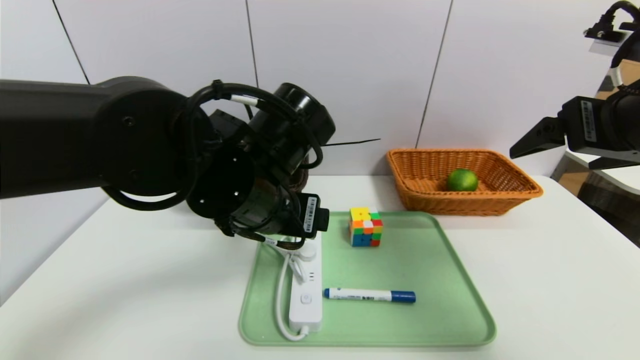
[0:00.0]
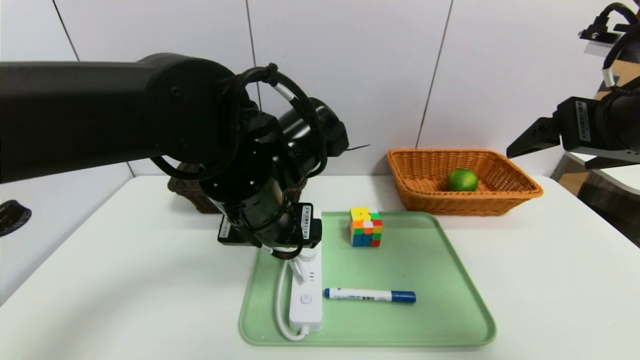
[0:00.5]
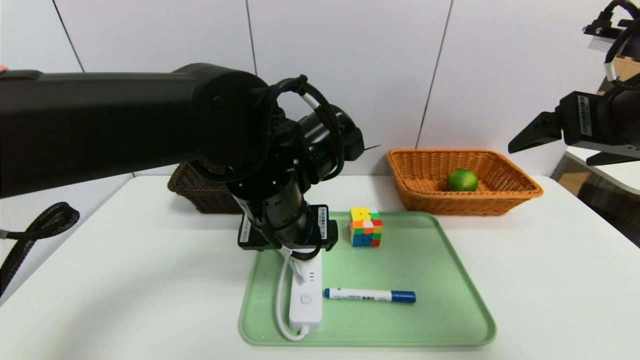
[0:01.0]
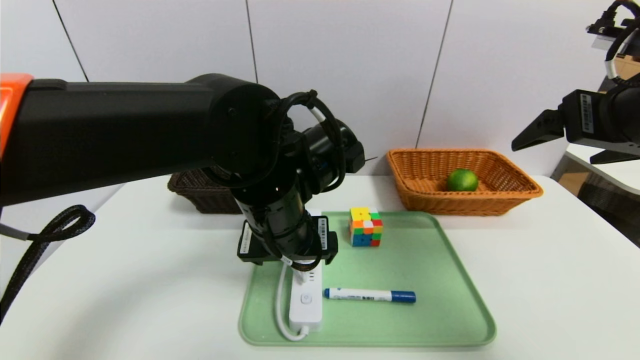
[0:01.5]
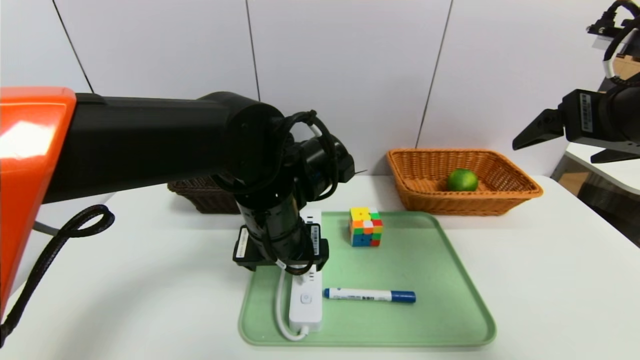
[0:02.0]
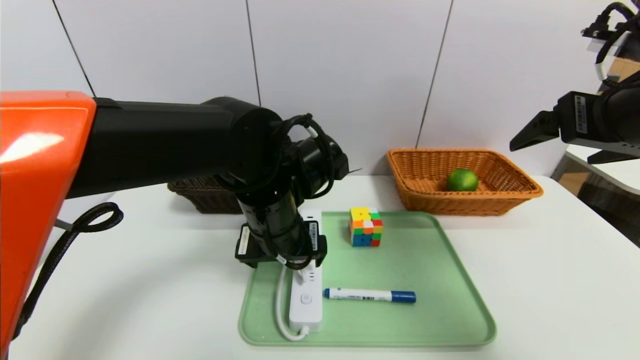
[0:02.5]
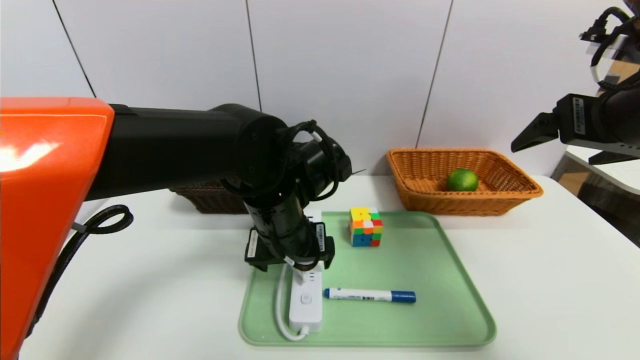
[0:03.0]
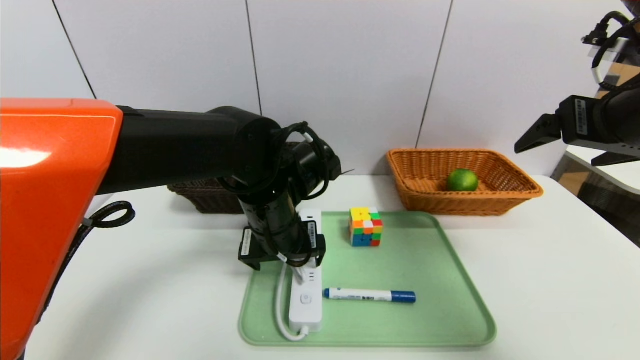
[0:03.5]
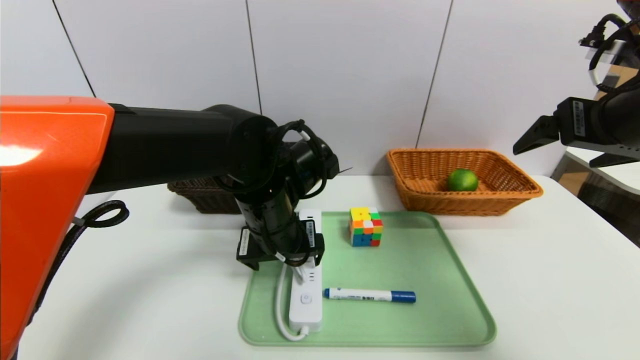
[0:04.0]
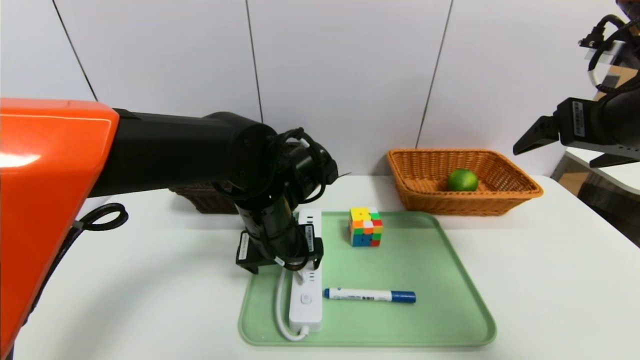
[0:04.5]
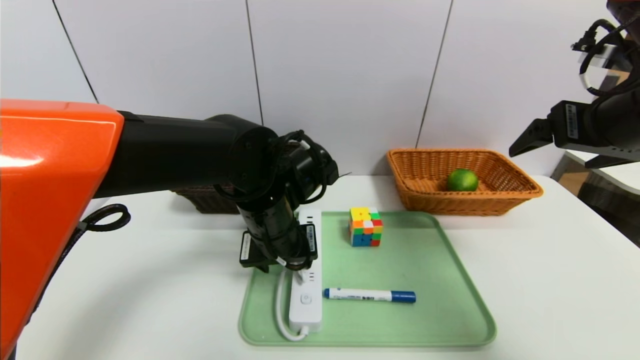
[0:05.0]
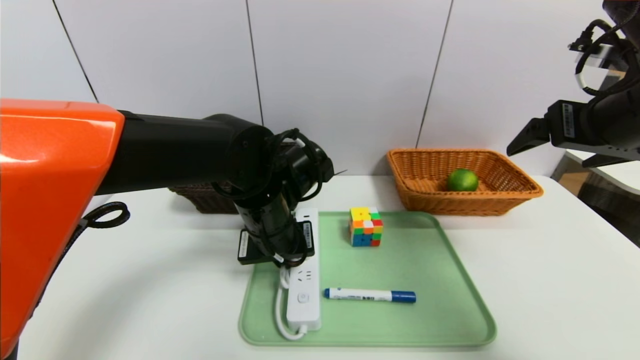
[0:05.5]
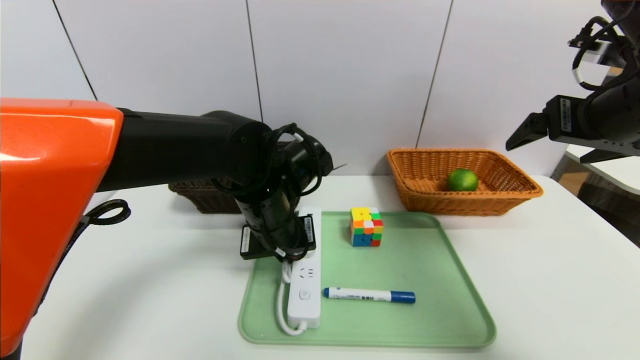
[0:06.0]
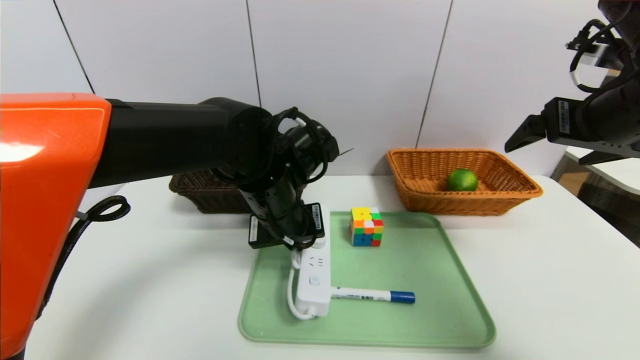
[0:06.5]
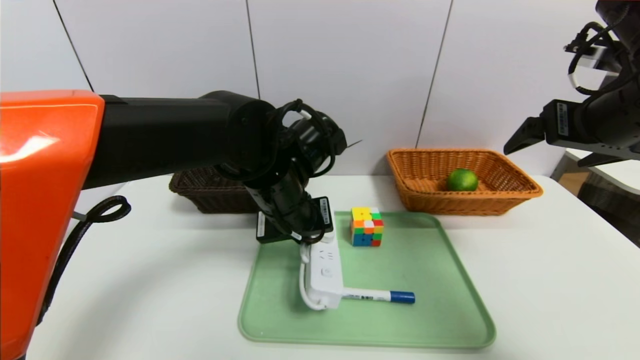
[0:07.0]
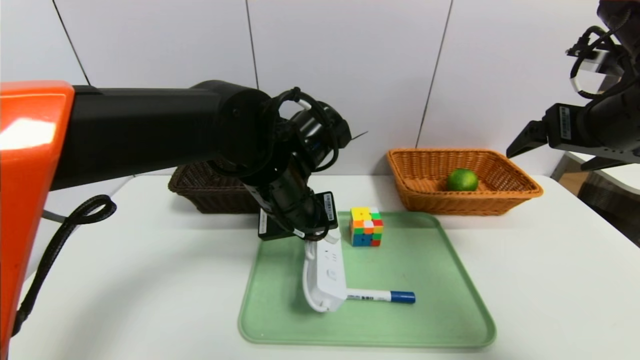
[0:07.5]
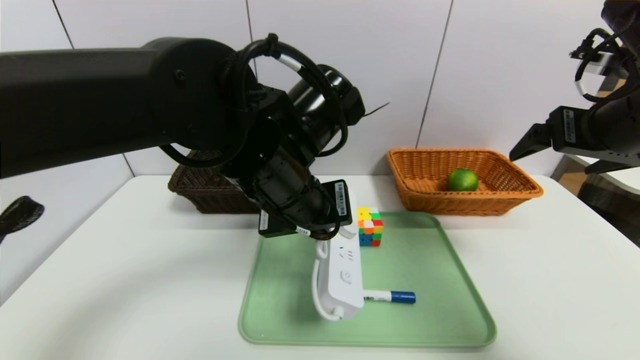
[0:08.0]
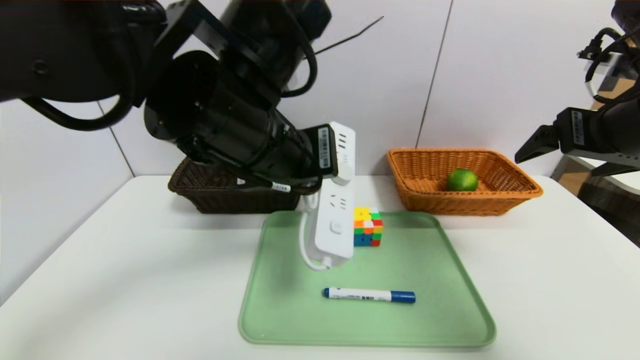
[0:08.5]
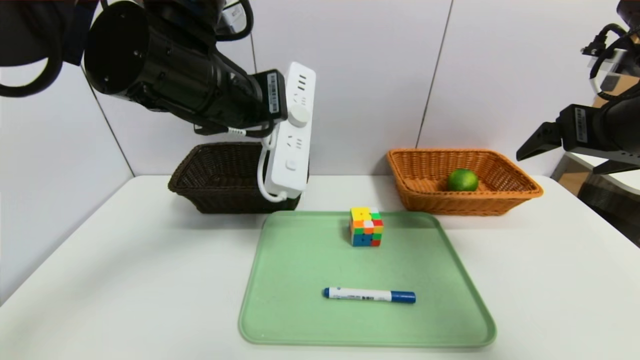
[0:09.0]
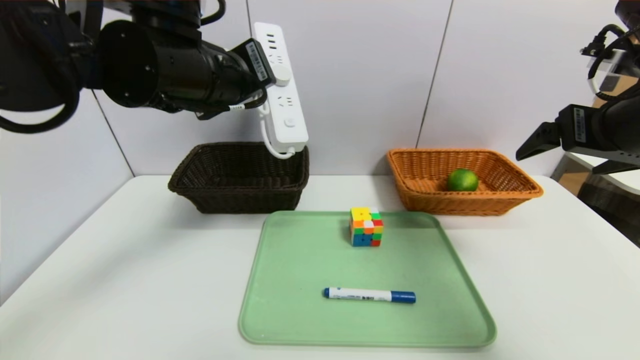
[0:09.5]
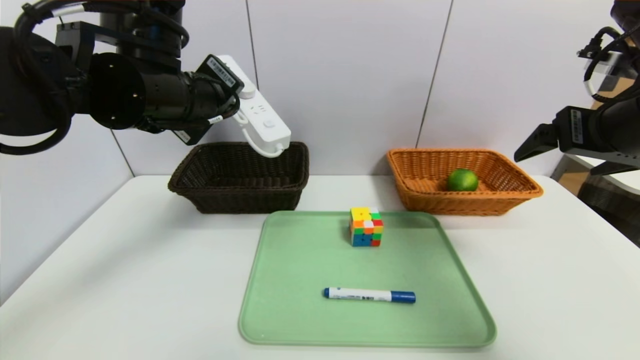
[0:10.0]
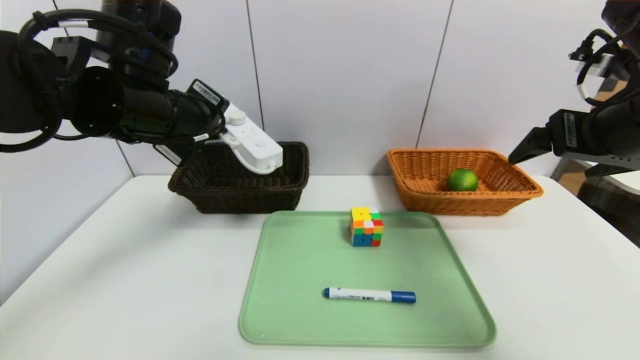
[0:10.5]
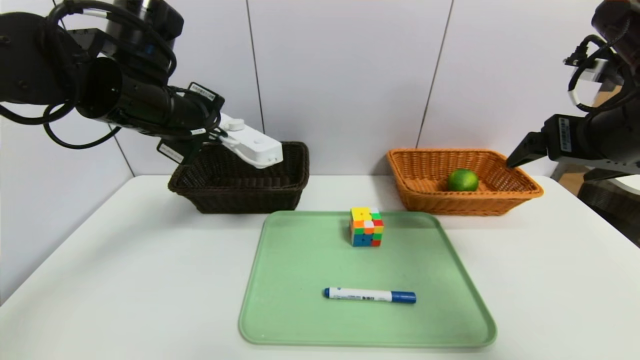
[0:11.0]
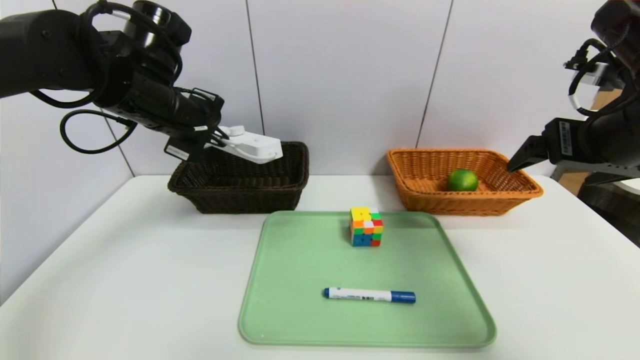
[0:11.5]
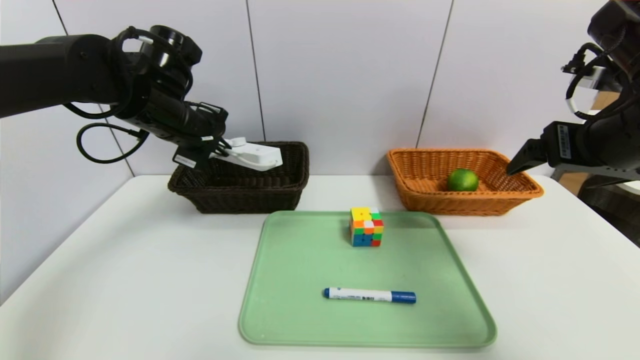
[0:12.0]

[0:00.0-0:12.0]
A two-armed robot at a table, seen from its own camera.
Task of the whole recording: place the food in the right basket with the right gripper, and place the non food items in the left basket with the left gripper.
0:02.0 to 0:04.0: The grippers make only small movements.
0:04.0 to 0:06.0: The left gripper closes up.
0:06.0 to 0:08.0: The left gripper moves upward and backward, about 10 cm.
0:08.0 to 0:10.0: The left gripper goes approximately 15 cm to the left and upward.
0:10.0 to 0:12.0: The left gripper shifts about 10 cm forward.

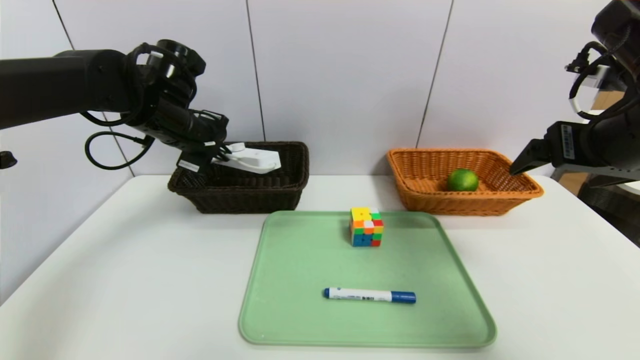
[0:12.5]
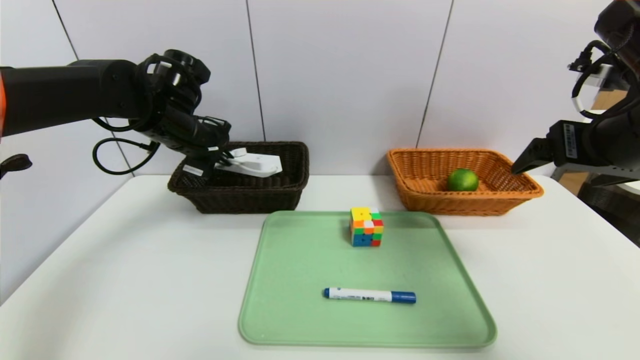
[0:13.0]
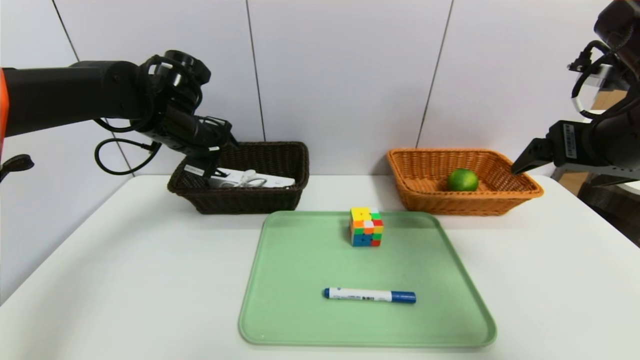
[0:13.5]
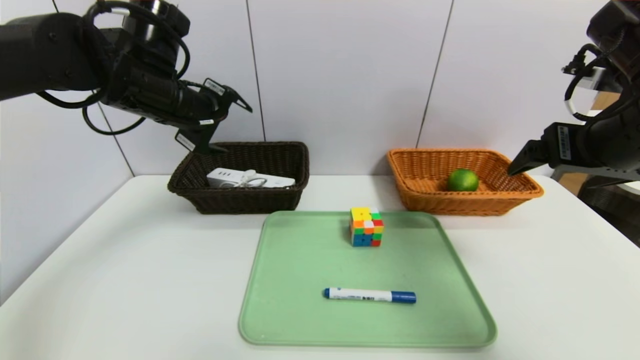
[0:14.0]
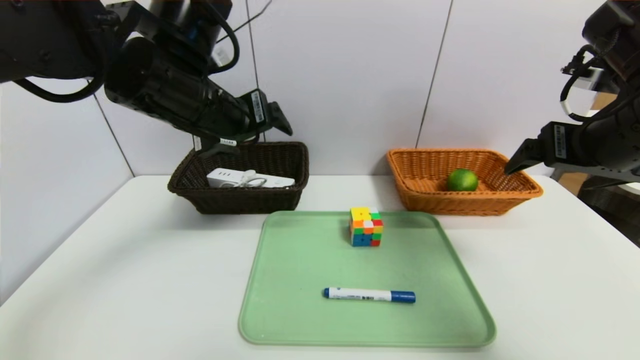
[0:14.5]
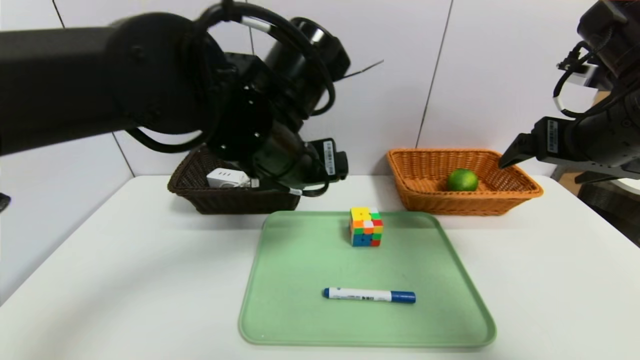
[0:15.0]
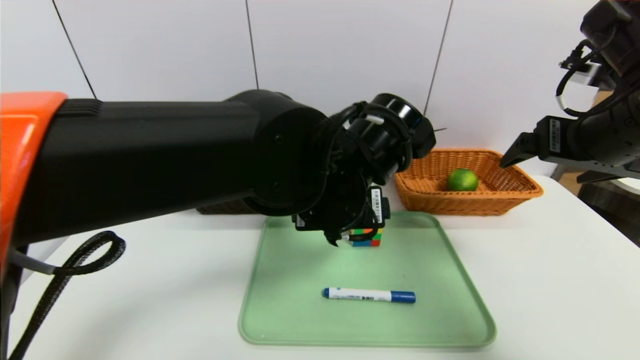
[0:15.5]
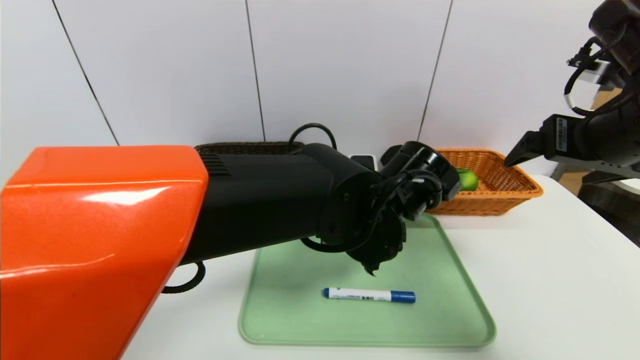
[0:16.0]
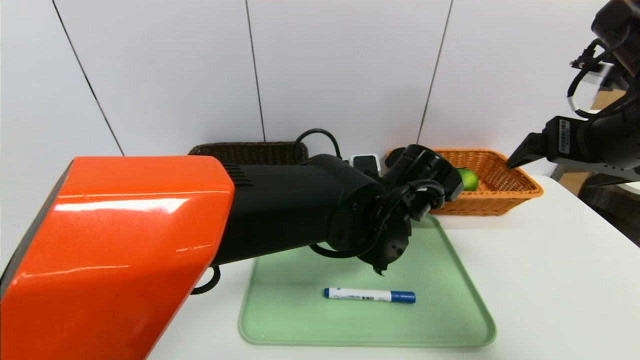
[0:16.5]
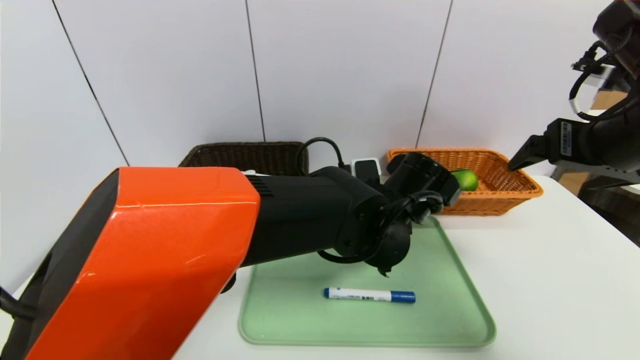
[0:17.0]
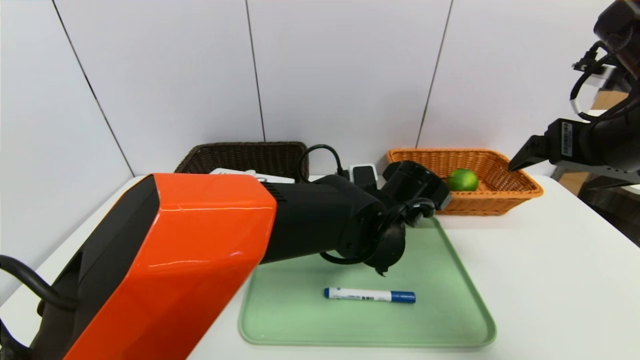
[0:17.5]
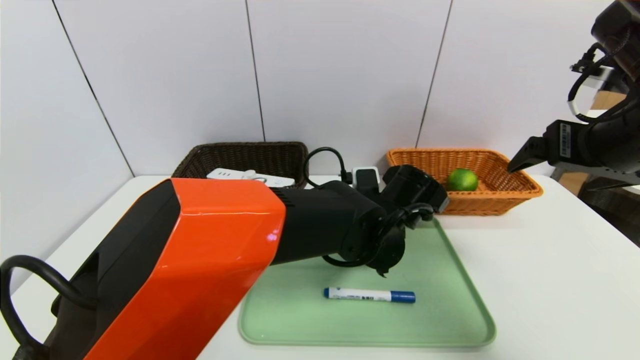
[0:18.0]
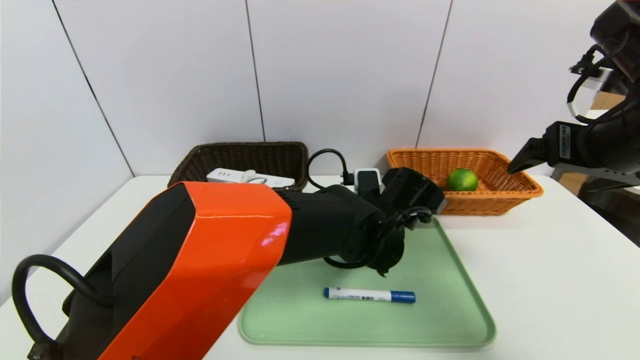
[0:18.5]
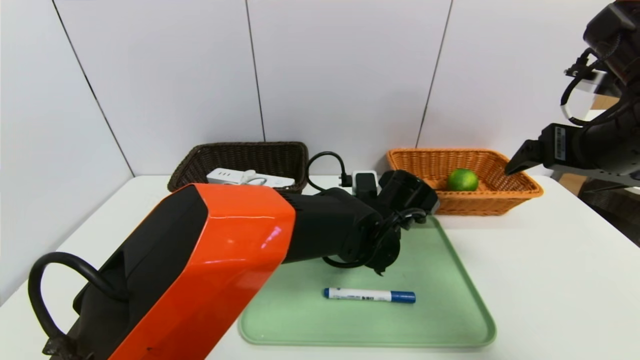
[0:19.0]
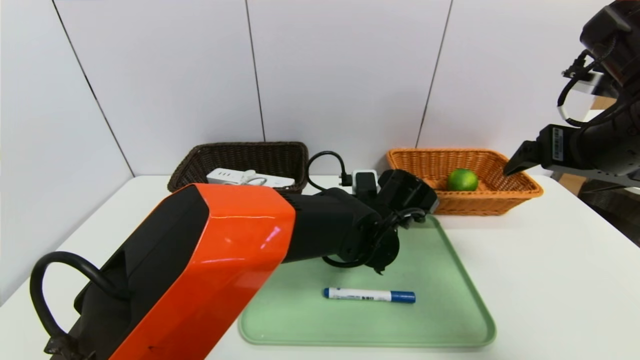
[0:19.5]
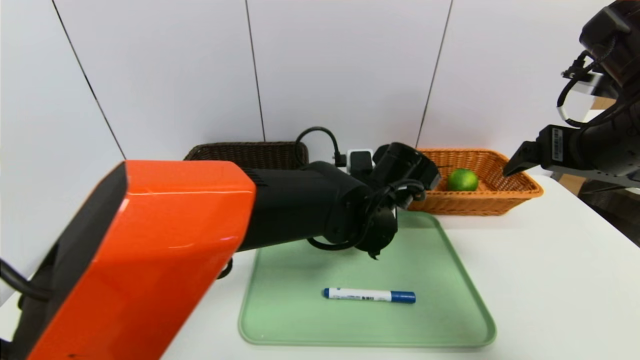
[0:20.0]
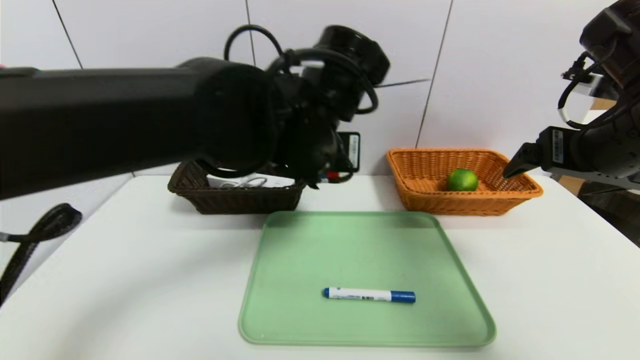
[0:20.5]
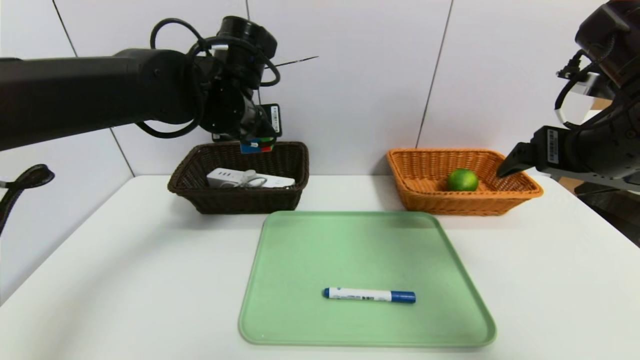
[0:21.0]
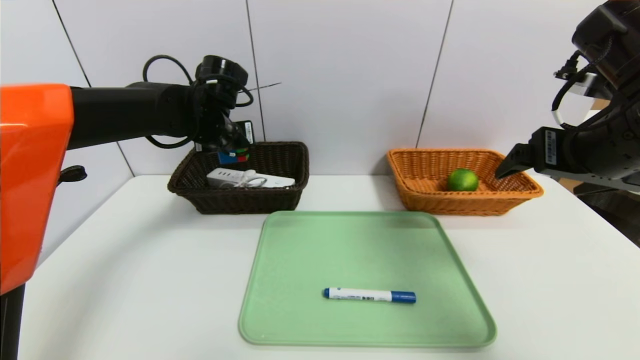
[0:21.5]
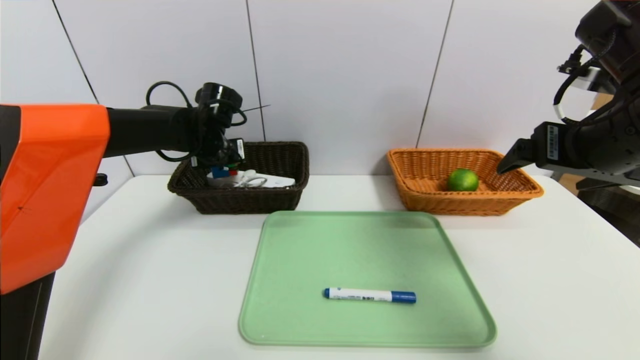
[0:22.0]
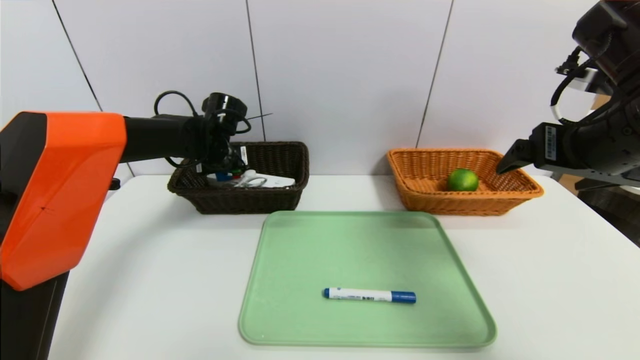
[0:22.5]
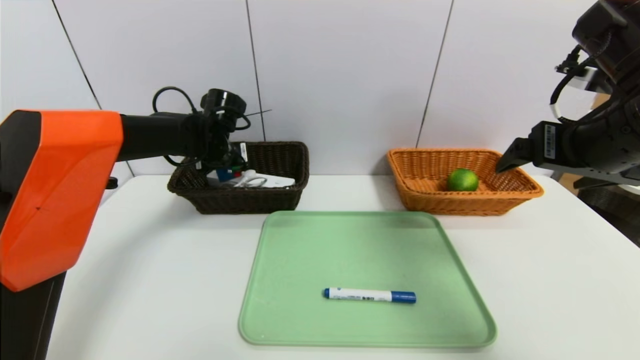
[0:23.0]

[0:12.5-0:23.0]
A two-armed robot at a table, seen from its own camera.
Task of the whole recording: place the food in the right basket with the right gripper, and place the non food items in the left basket with the left gripper.
0:12.5 to 0:14.5: The left gripper shifts approximately 15 cm backward, to the right and upward, and opens up.
0:14.5 to 0:16.5: The left gripper heads to the right and downward, covering roughly 25 cm.
0:16.5 to 0:19.0: The left gripper goes some 5 cm downward.
0:19.0 to 0:21.0: The left gripper goes about 25 cm to the left and upward, and closes up.
0:21.0 to 0:23.0: The left gripper is displaced forward, downward and to the left by about 15 cm.
